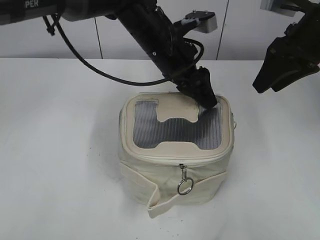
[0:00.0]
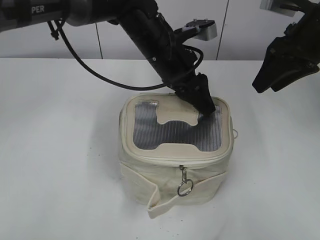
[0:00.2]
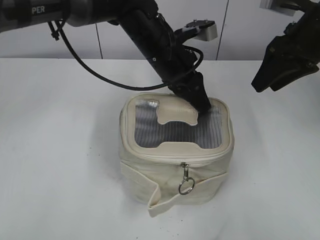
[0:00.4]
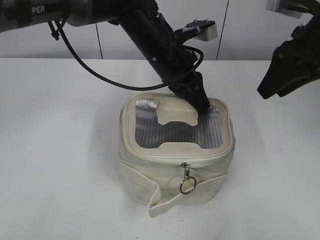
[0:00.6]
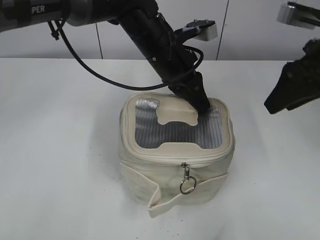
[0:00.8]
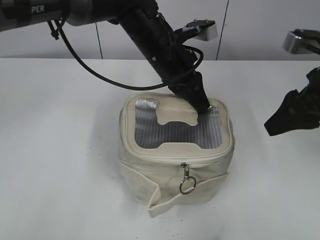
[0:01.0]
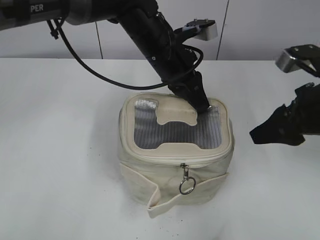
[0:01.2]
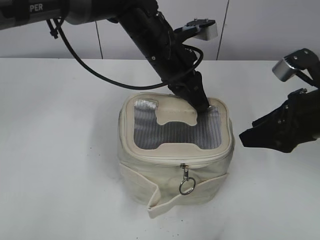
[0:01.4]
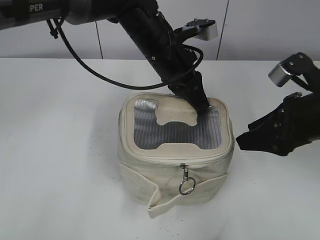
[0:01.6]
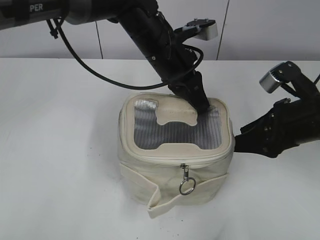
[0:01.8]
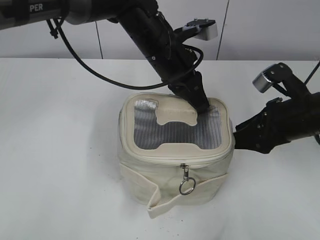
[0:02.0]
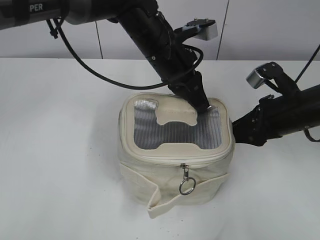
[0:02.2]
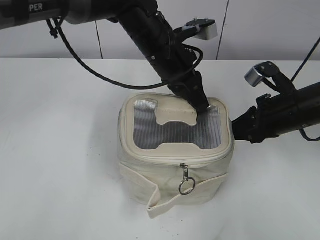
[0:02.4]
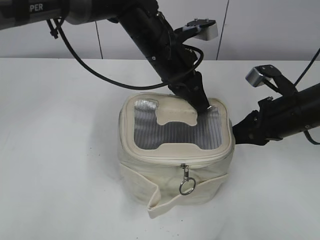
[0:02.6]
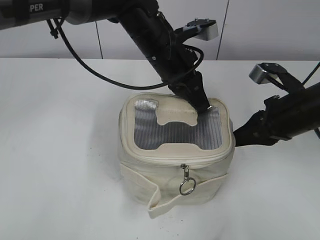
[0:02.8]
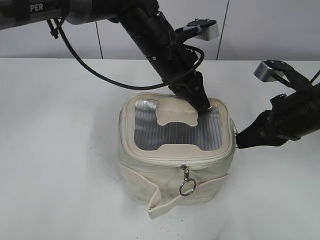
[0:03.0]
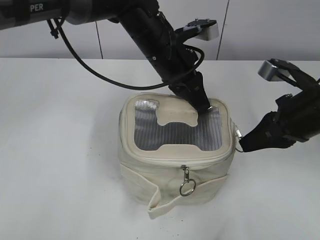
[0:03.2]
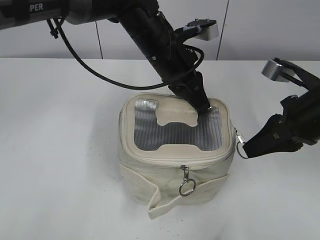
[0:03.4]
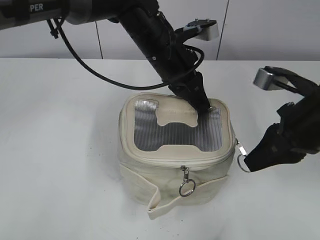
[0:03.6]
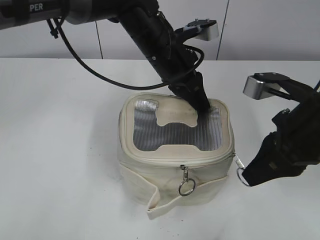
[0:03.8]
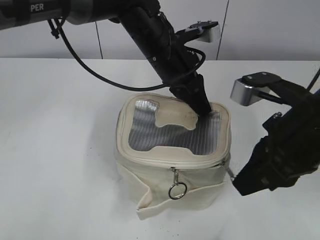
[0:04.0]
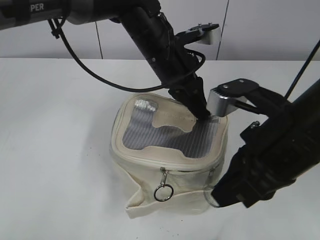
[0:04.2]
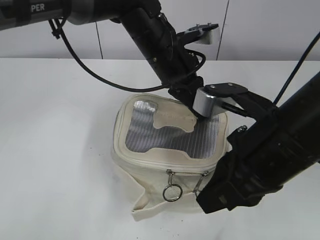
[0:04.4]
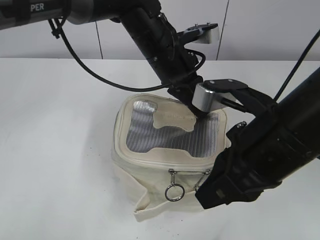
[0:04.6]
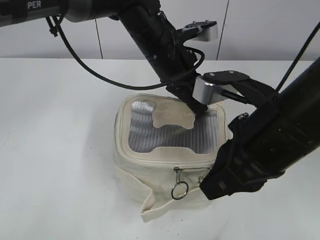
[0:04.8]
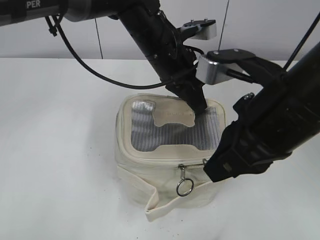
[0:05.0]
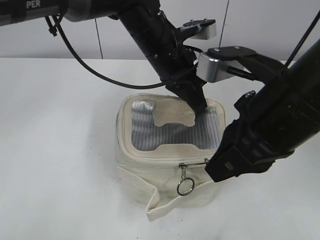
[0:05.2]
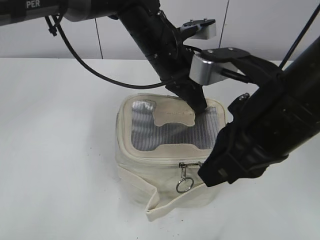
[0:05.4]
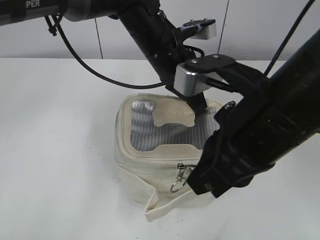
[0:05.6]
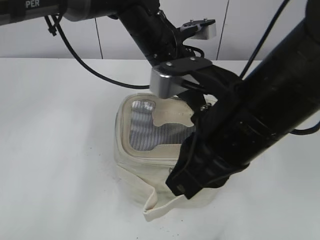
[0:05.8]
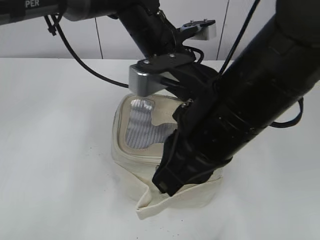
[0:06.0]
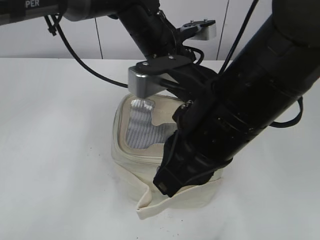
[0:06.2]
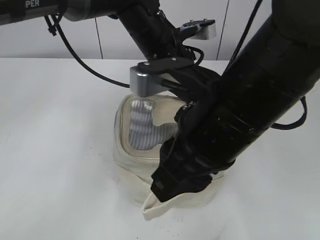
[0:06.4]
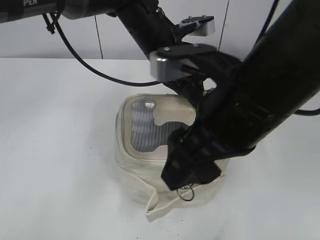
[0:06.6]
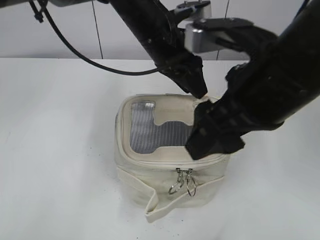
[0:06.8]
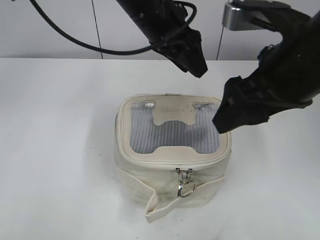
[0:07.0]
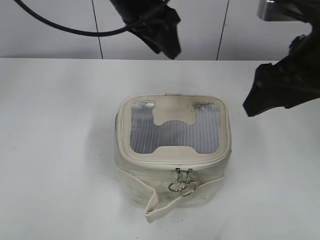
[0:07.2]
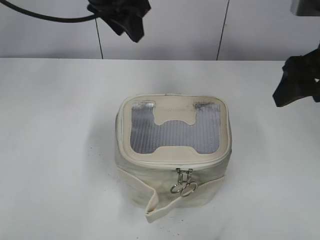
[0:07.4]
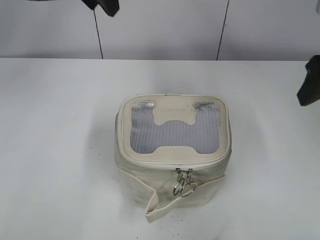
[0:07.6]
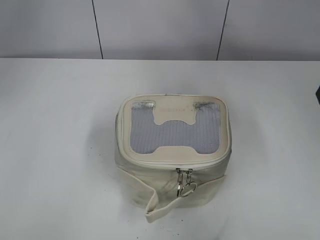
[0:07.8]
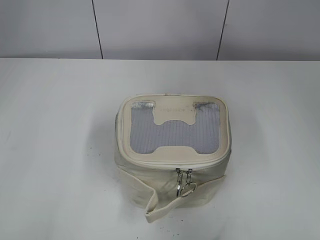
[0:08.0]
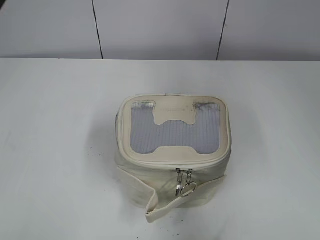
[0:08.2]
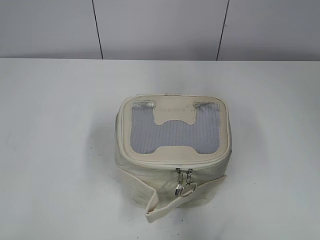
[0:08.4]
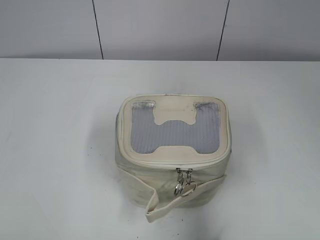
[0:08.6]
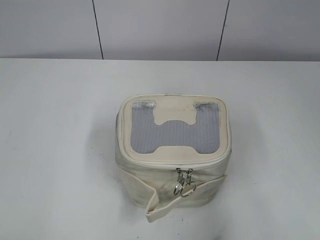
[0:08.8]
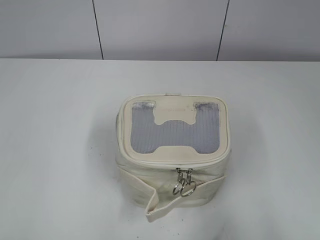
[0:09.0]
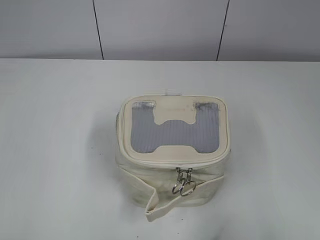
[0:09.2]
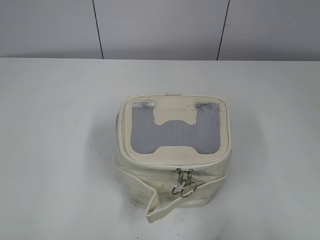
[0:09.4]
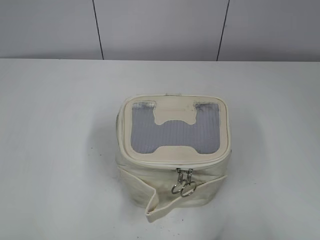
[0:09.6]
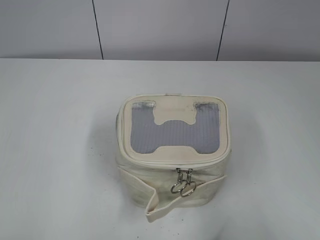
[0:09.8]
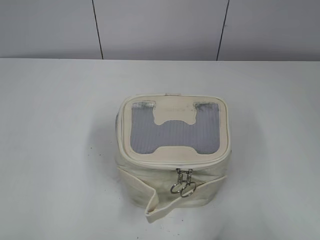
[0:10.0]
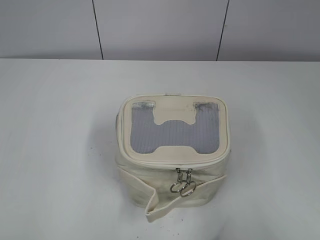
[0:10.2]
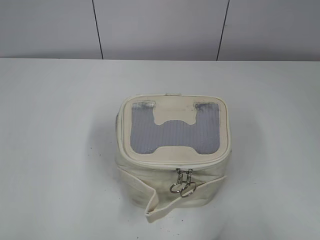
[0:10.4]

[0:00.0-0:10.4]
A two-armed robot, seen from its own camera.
Step, 0:00.0 to 0:06.4: Zip up the bag with your right hand.
0:00.0 to 0:01.4: The left gripper closes. The right gripper moves backward and downward, approximately 15 cm.
0:01.4 to 0:03.0: The right gripper closes its fingers.
0:03.0 to 0:04.4: The right gripper goes about 15 cm backward, to the left and upward.
0:04.4 to 0:06.0: The right gripper moves to the left, roughly 5 cm.
0:06.0 to 0:07.4: The right gripper moves to the right and forward, approximately 20 cm, and opens up, while the left gripper shifts some 15 cm upward and to the left, and opens up.
0:07.4 to 0:09.0: The left gripper is displaced backward and to the left by some 50 cm, while the right gripper travels backward by some 25 cm.

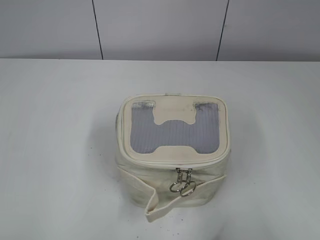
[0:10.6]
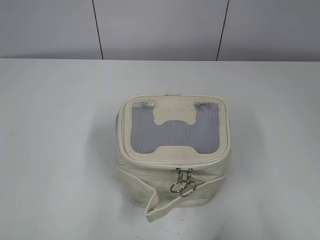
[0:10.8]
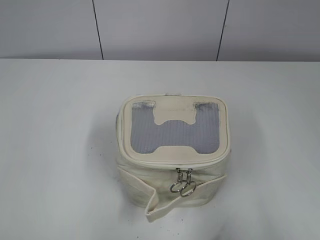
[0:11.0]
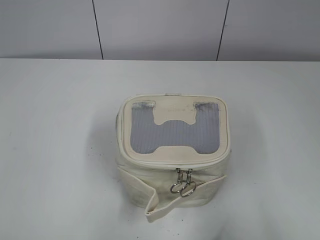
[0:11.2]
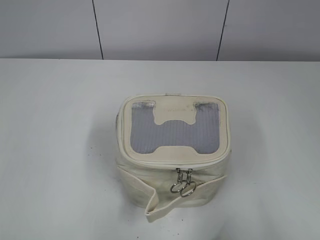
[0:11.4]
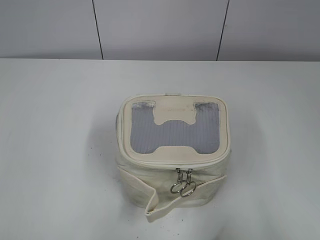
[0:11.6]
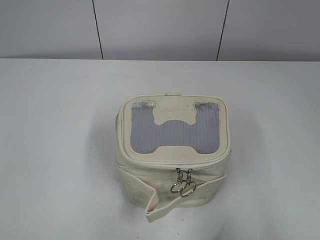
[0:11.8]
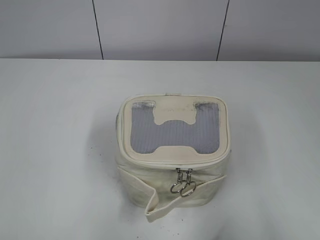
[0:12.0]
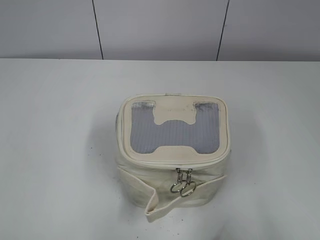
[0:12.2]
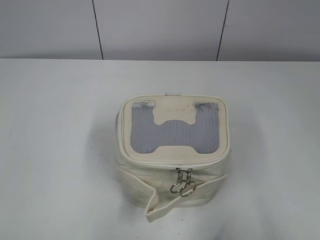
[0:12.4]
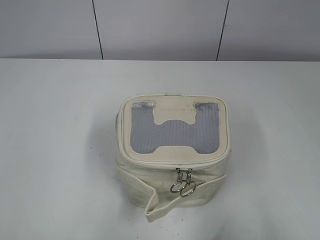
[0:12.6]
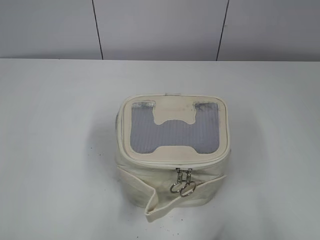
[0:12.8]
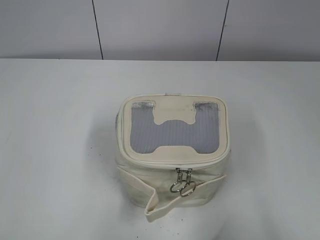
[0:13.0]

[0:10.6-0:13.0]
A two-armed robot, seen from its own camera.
0:11.8 to 0:13.0: Both grippers stay put.

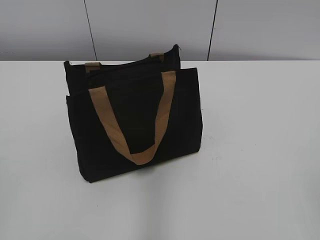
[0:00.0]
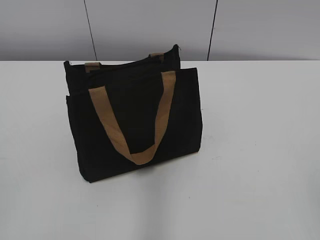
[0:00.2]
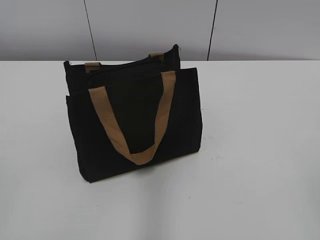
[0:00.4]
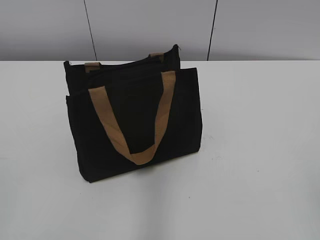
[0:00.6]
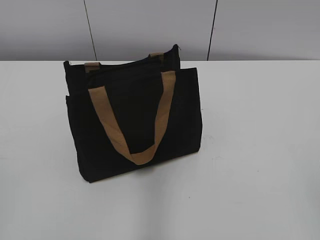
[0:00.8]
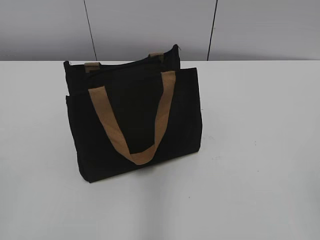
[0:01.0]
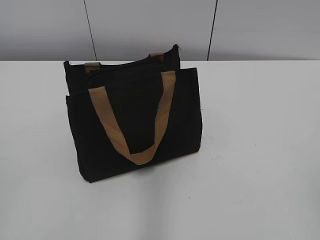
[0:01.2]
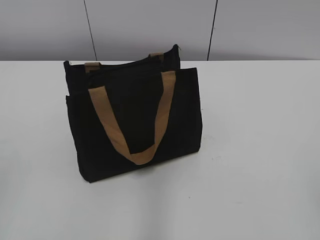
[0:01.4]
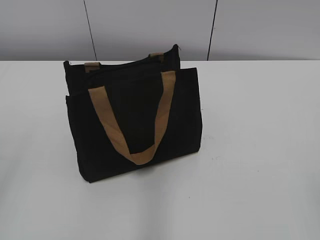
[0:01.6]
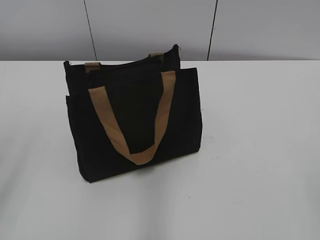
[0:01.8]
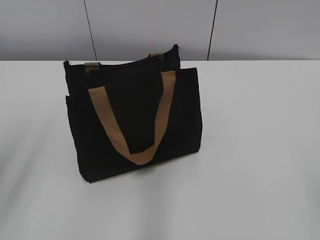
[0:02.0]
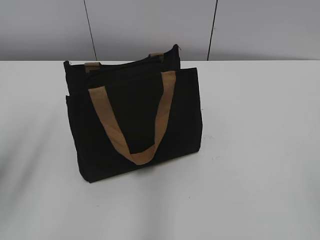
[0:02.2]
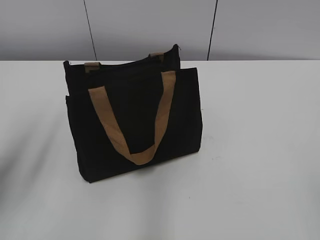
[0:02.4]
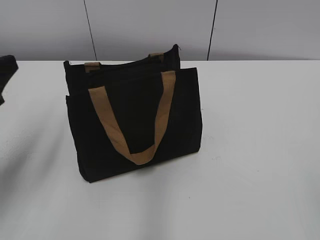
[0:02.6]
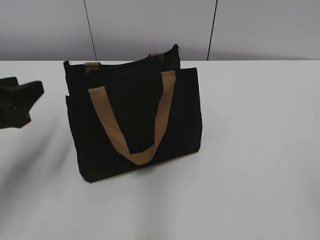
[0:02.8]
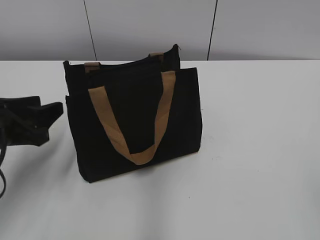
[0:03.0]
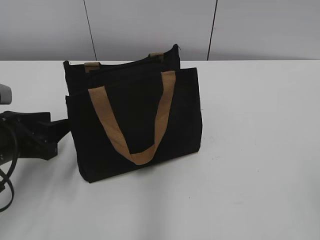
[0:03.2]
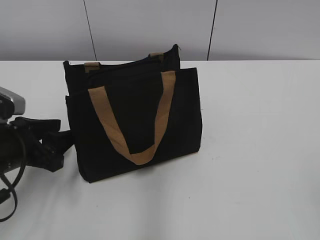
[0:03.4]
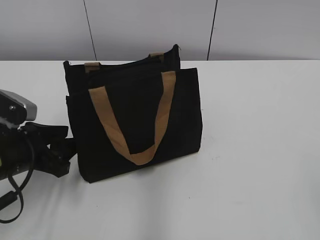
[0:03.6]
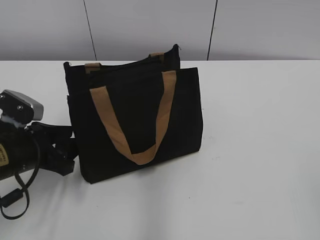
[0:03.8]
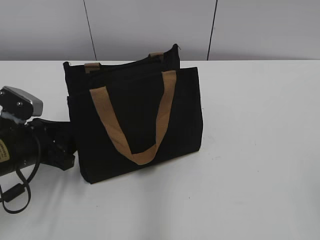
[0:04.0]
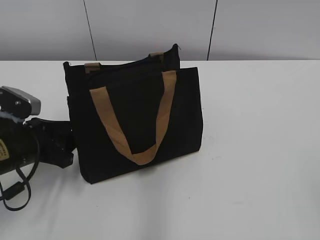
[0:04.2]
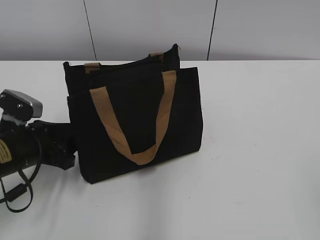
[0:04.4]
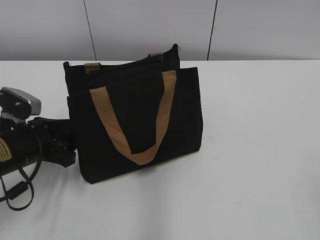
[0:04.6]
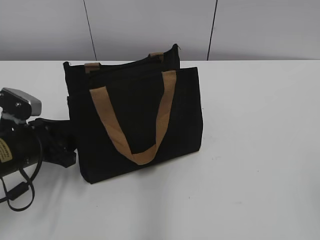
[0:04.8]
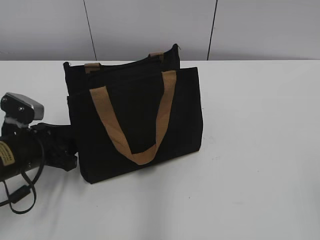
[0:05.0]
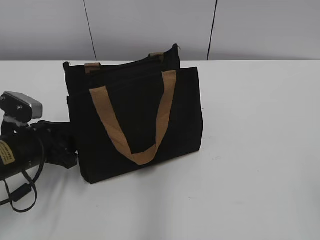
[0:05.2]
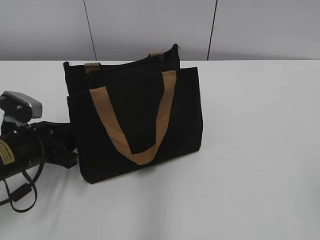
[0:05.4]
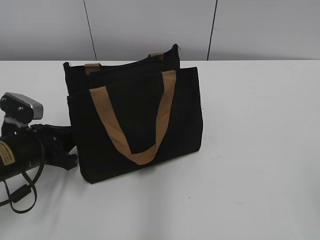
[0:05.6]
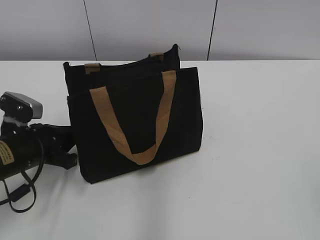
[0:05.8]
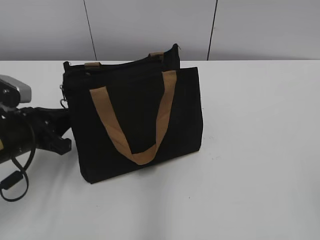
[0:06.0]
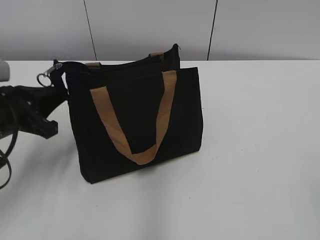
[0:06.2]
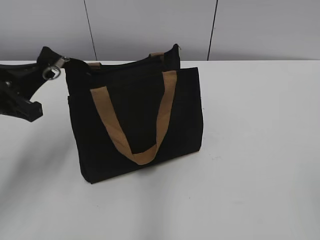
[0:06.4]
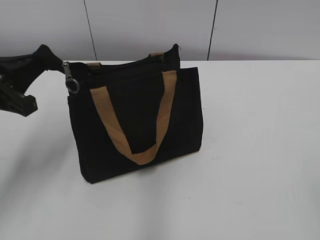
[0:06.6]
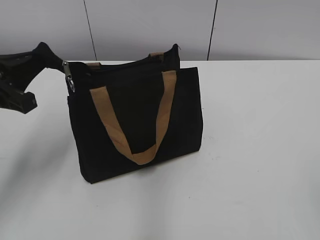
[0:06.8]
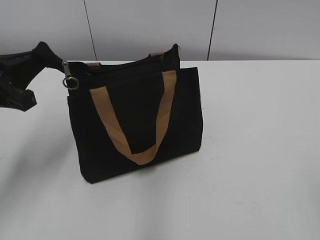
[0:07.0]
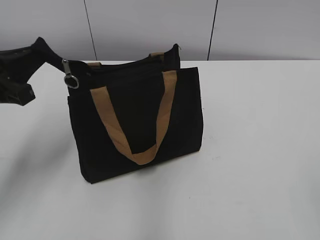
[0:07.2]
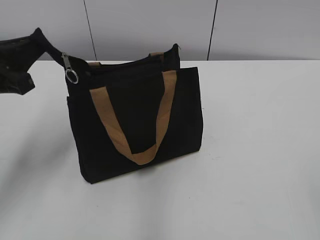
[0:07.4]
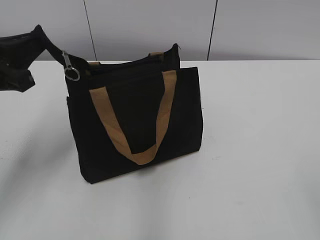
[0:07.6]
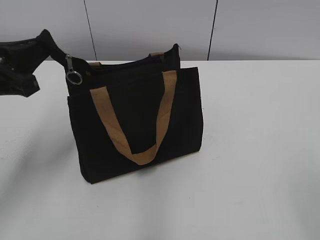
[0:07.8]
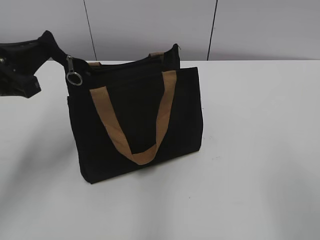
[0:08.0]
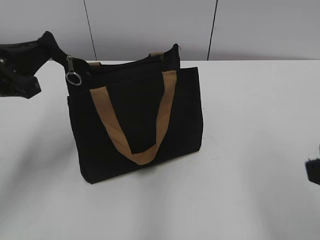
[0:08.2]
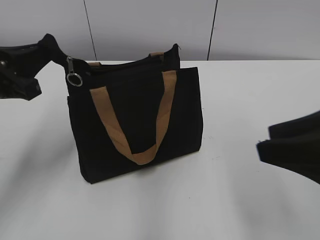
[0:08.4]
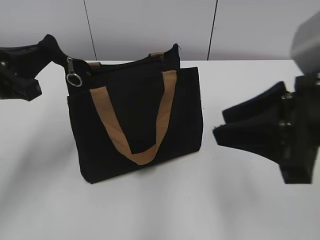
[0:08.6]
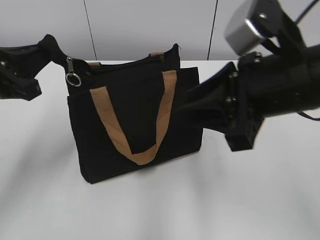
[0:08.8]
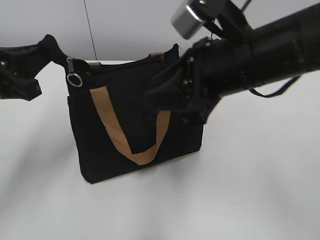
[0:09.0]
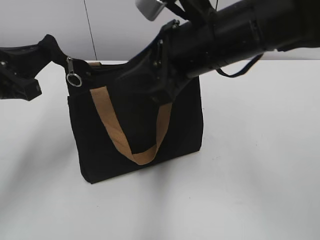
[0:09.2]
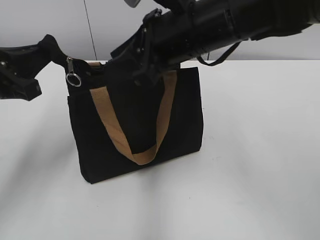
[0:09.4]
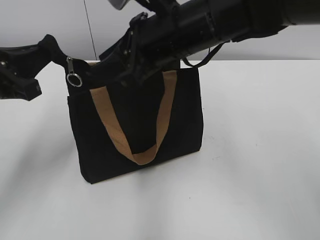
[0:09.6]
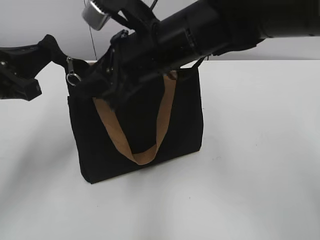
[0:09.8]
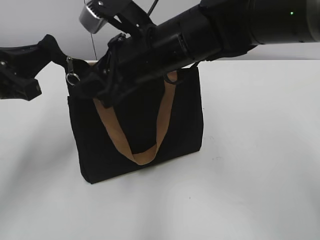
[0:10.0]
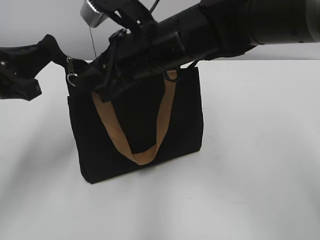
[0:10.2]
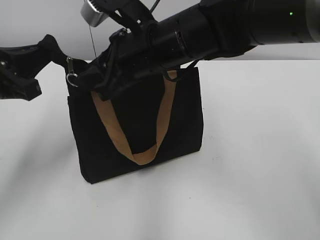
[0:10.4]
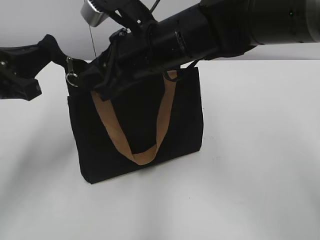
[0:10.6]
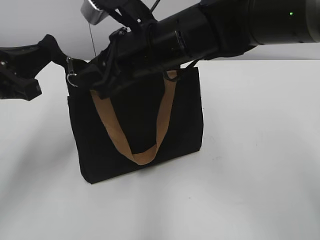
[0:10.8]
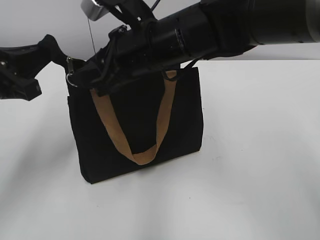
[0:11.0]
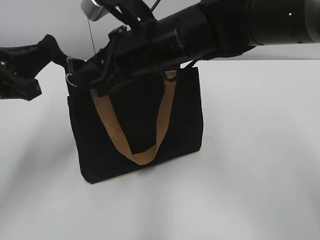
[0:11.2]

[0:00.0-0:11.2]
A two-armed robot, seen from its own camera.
0:01.6 to 0:03.2: The left gripper goes roughly 25 cm forward and downward.
0:03.2 to 0:04.8: The left gripper shifts by about 5 cm.
0:04.8 to 0:06.4: The left gripper shifts roughly 10 cm upward, and closes its fingers.
0:08.0 to 0:09.6: The right gripper heads forward and to the left, covering some 35 cm.
0:09.6 to 0:11.2: The grippers stay close to where they were, moving slightly.
